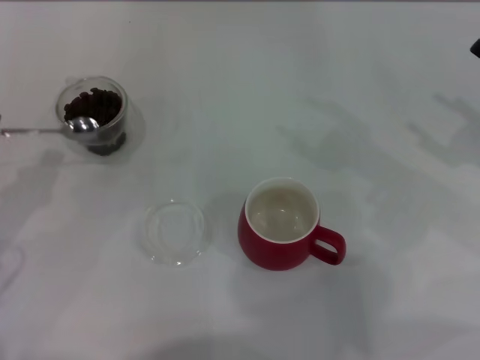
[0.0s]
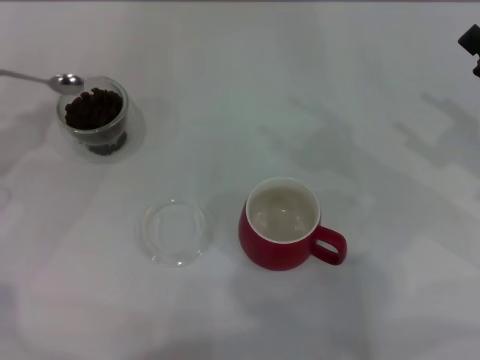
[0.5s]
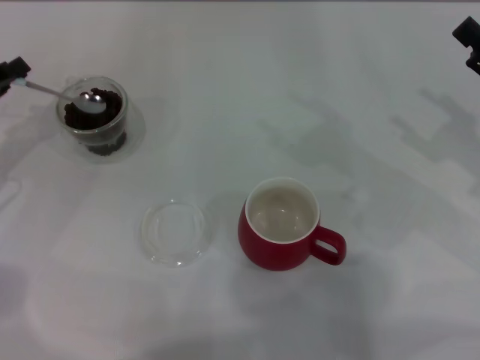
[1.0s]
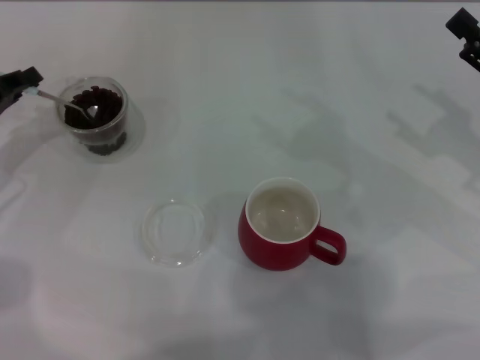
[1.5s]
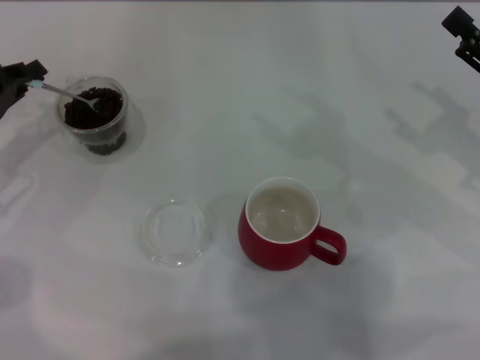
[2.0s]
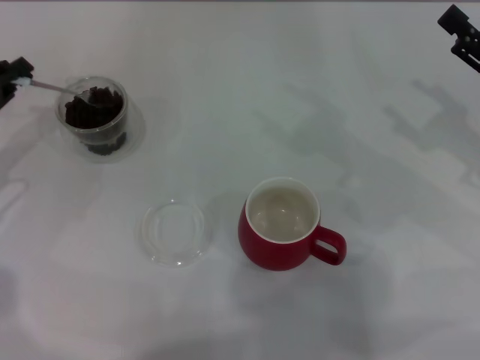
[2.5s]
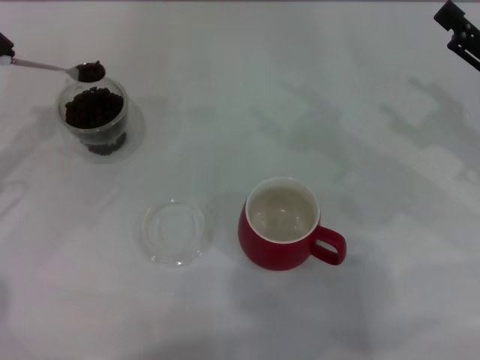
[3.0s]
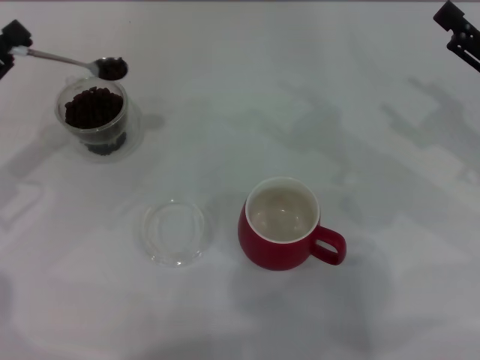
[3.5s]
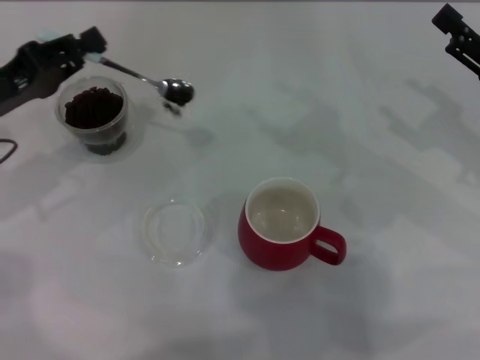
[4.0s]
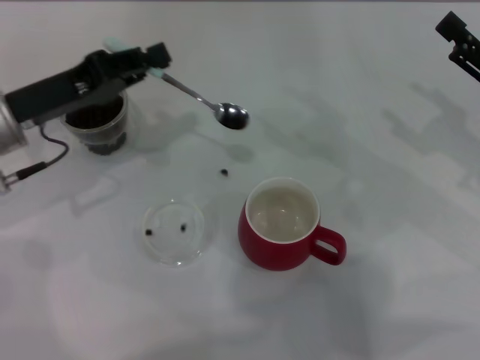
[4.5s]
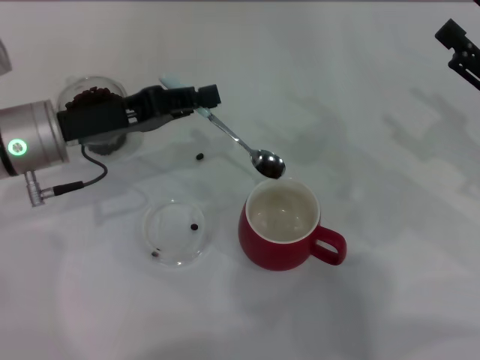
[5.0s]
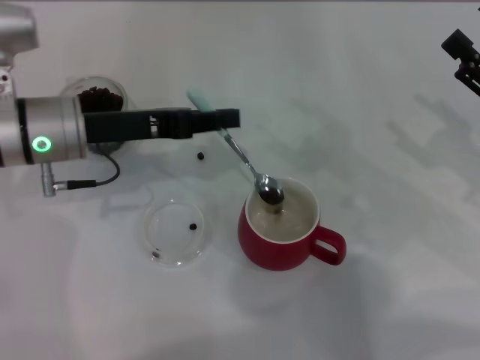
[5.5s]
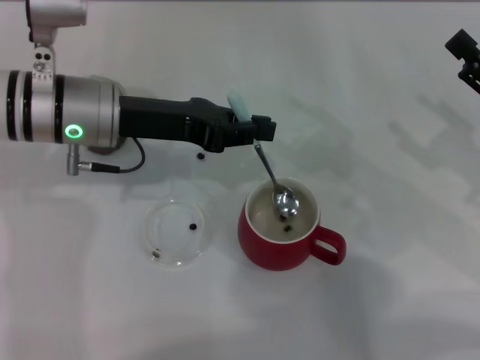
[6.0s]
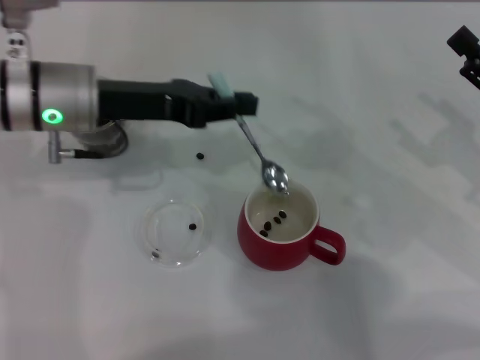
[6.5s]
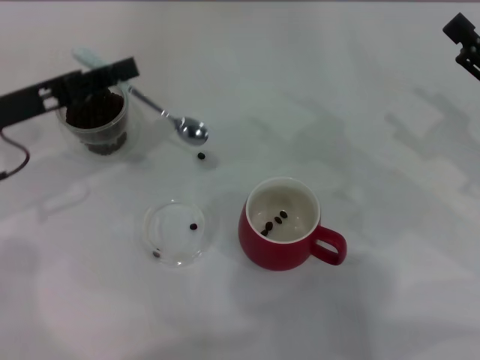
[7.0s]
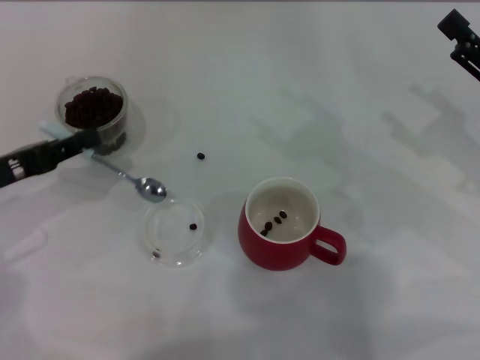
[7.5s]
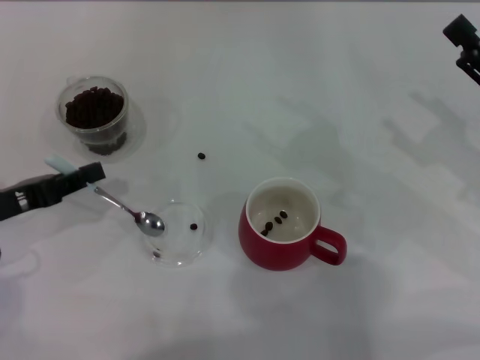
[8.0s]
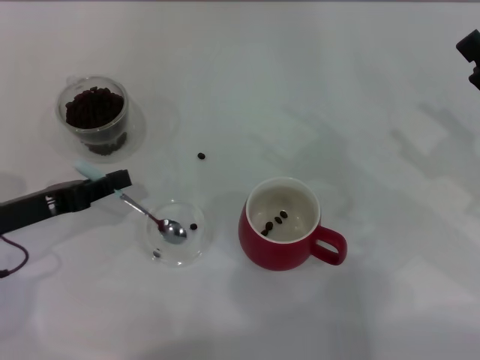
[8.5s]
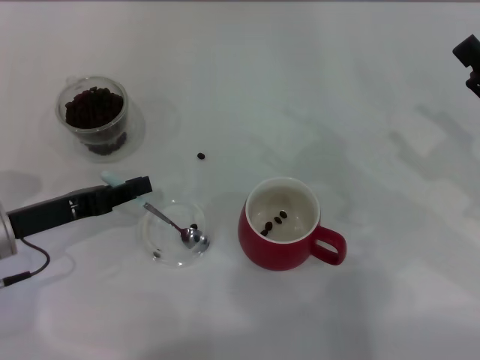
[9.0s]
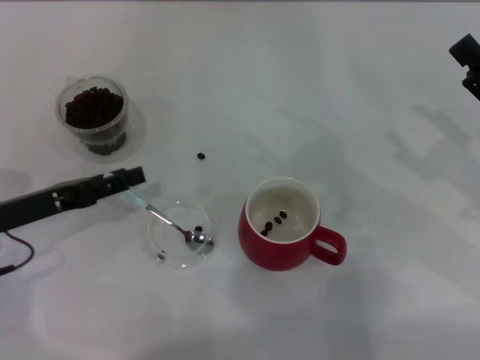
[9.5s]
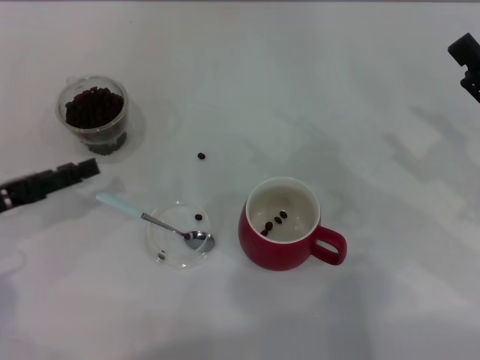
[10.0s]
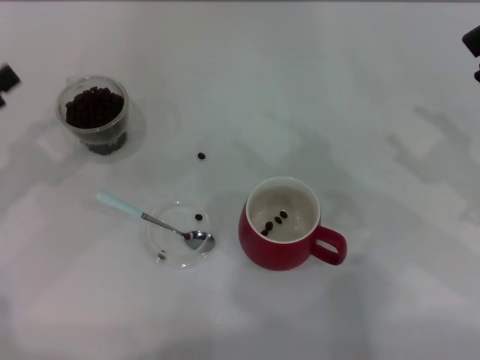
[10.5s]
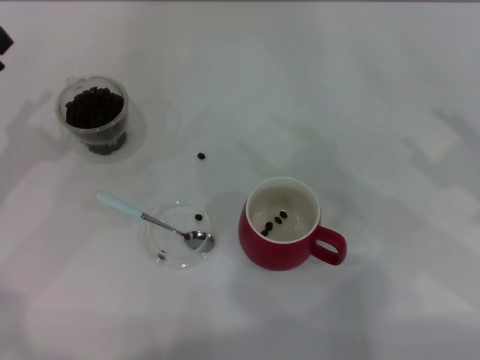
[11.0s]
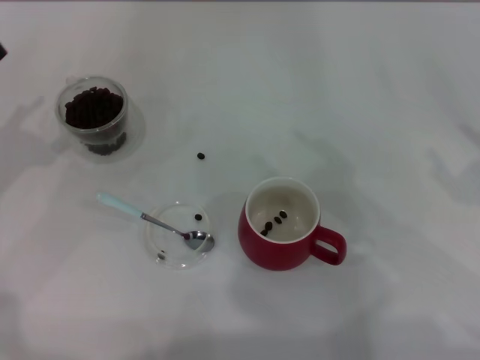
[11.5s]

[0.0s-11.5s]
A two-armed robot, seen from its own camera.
Task of the whole recording: Use a blue spoon to take out the coffee beans from the glass and pour them into the red cup.
Step, 0.0s to 6.5s: Scoop a spoonful of beans into the cup with the right gripper.
Step, 7.0s to 10.0s: Place the spoon back in its original place with the right gripper.
0.0s to 2.0s: The left gripper shifts some 15 cm forward.
2.0s to 4.0s: The left gripper changes place by some 5 cm.
4.0s to 6.0s: The left gripper heads to the right, covering about 15 cm.
6.0s to 7.5s: The left gripper travels to the left and backward by roughly 15 cm.
7.5s to 9.5s: The left gripper opens up.
9.5s to 11.5s: The left gripper is displaced to the left and upward by roughly 10 cm, and opens up.
